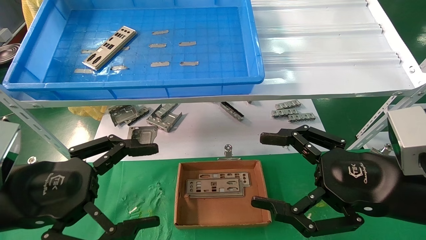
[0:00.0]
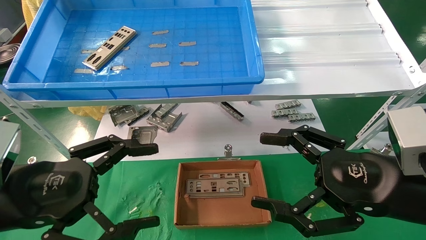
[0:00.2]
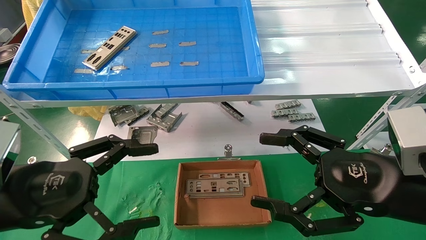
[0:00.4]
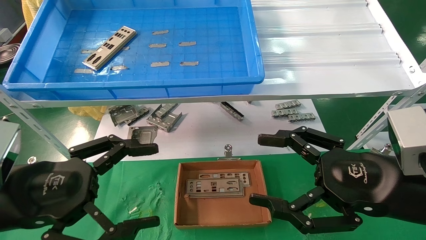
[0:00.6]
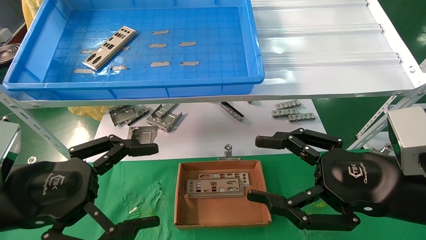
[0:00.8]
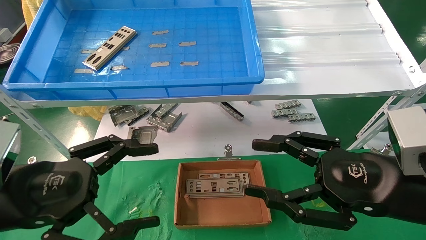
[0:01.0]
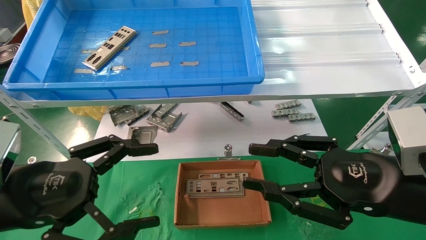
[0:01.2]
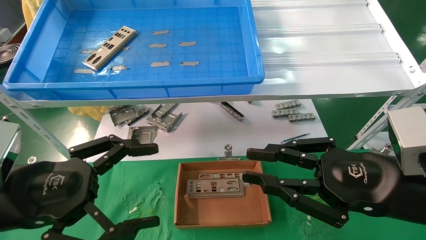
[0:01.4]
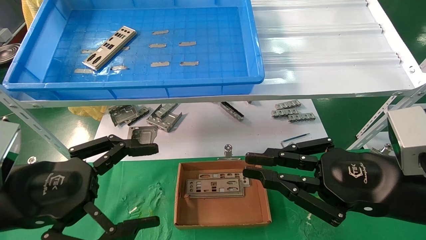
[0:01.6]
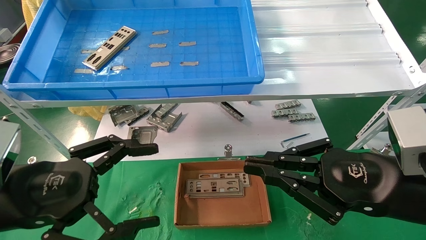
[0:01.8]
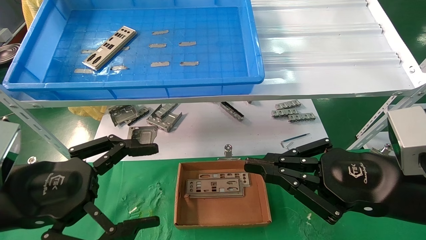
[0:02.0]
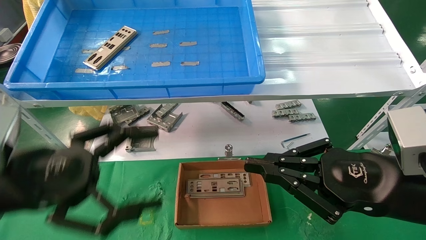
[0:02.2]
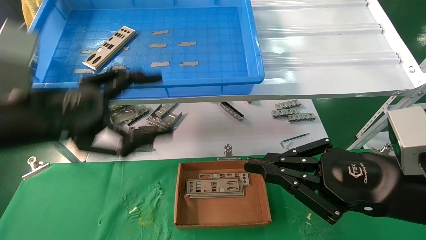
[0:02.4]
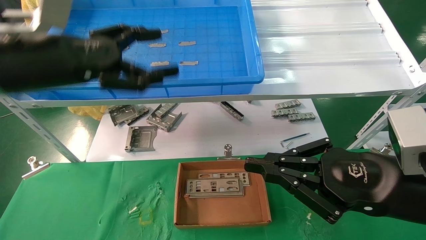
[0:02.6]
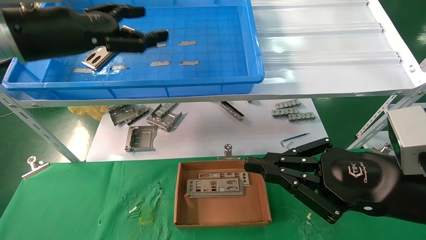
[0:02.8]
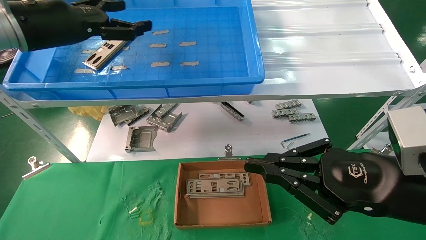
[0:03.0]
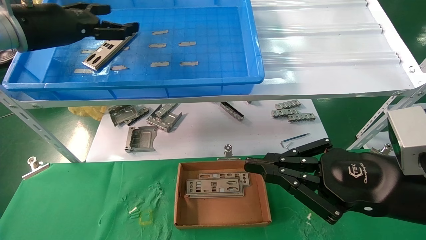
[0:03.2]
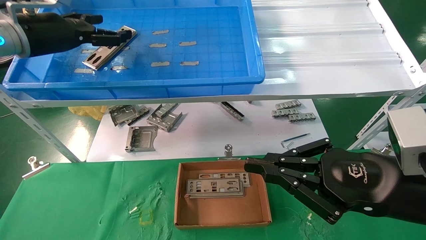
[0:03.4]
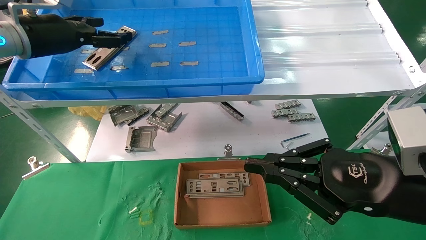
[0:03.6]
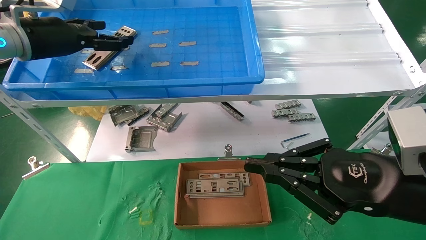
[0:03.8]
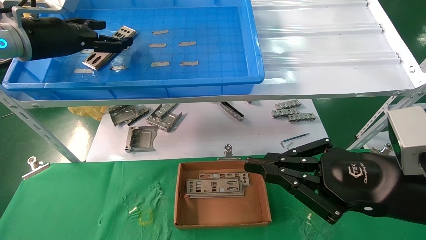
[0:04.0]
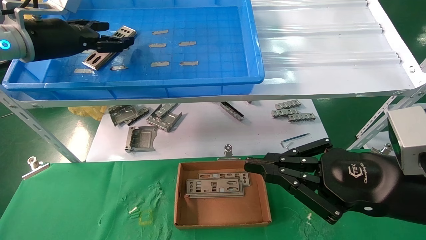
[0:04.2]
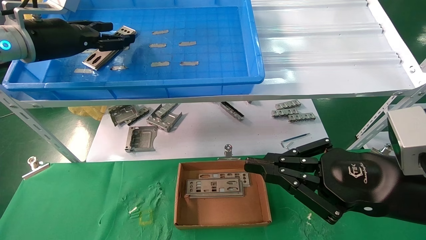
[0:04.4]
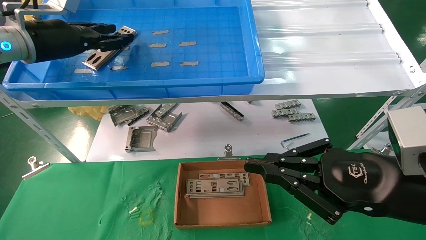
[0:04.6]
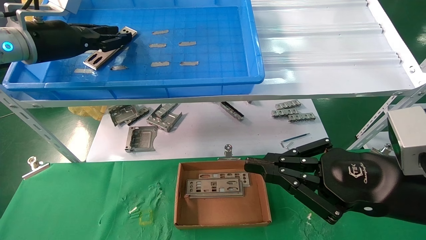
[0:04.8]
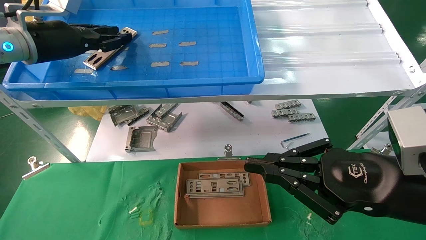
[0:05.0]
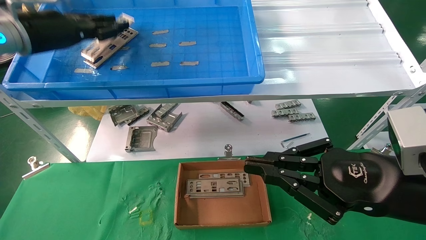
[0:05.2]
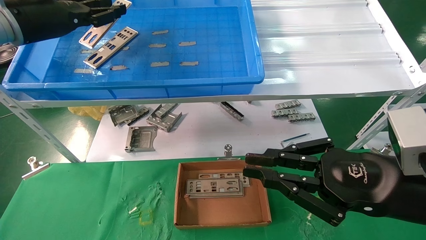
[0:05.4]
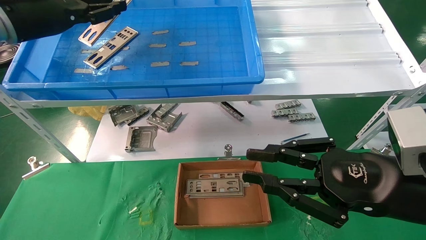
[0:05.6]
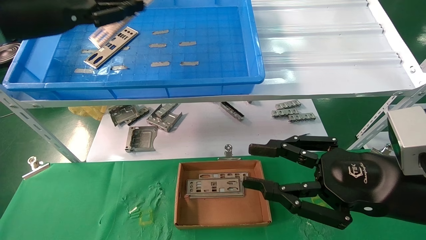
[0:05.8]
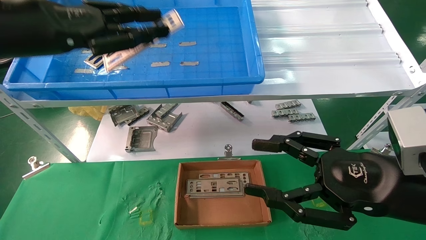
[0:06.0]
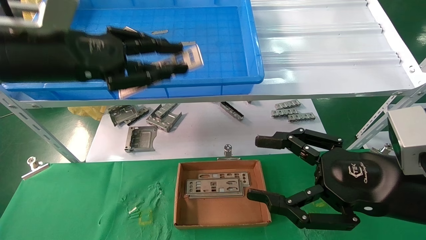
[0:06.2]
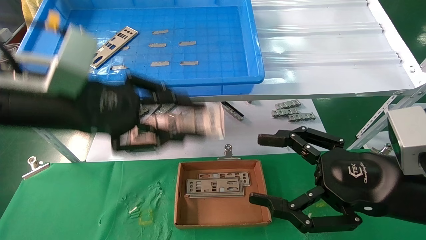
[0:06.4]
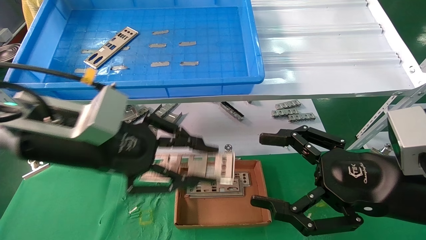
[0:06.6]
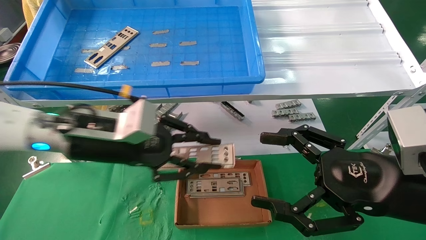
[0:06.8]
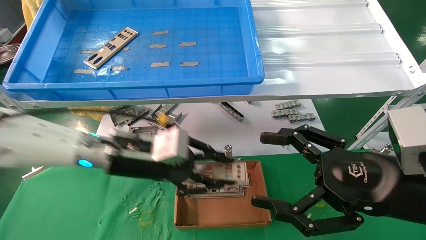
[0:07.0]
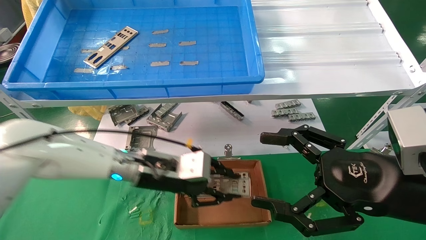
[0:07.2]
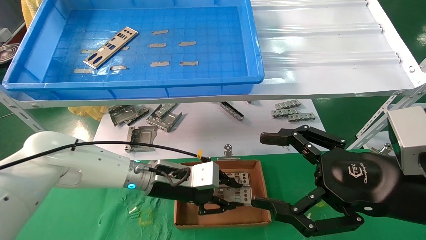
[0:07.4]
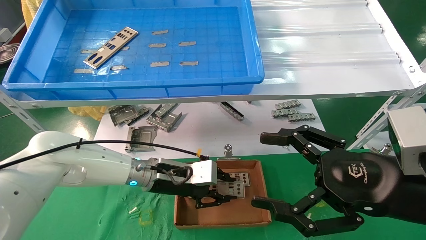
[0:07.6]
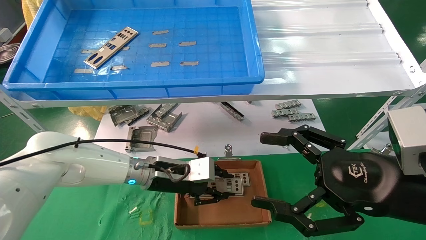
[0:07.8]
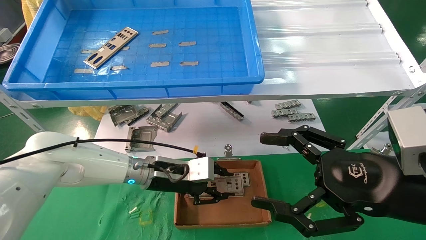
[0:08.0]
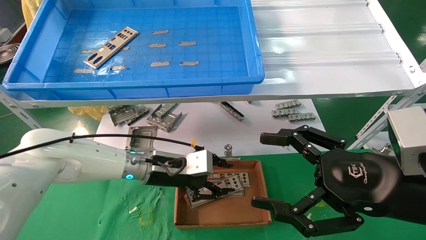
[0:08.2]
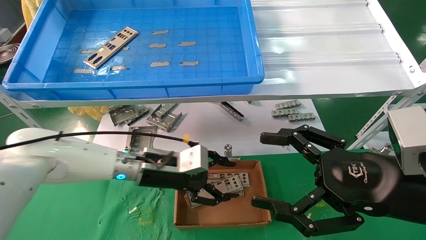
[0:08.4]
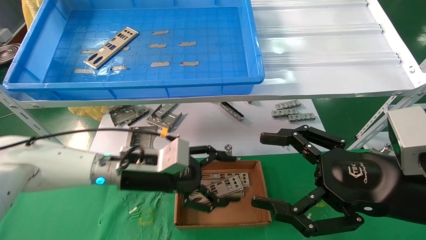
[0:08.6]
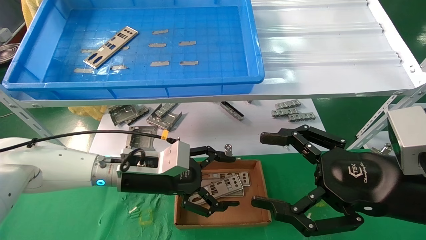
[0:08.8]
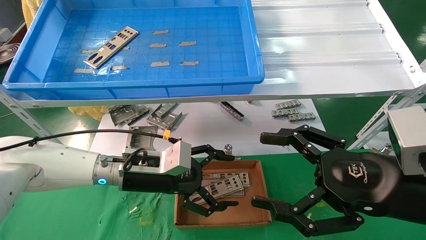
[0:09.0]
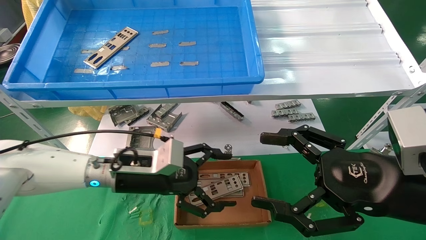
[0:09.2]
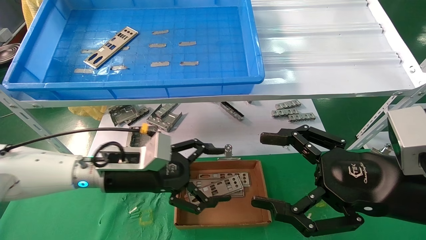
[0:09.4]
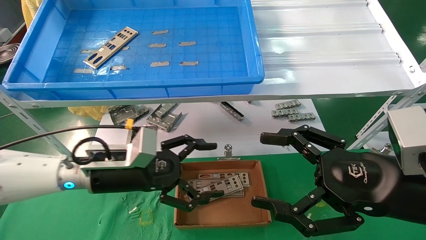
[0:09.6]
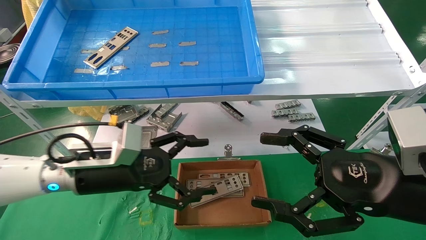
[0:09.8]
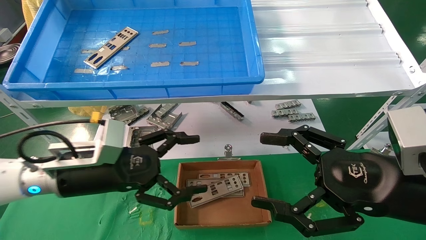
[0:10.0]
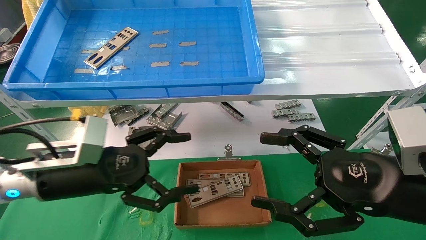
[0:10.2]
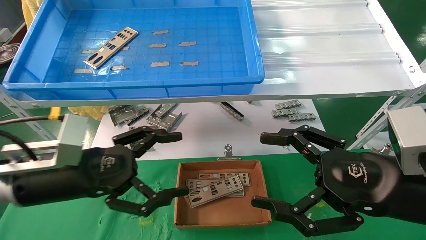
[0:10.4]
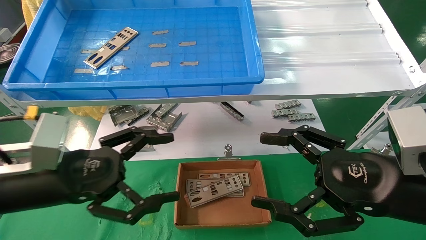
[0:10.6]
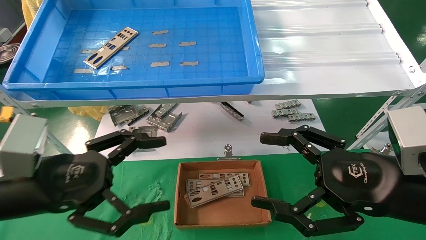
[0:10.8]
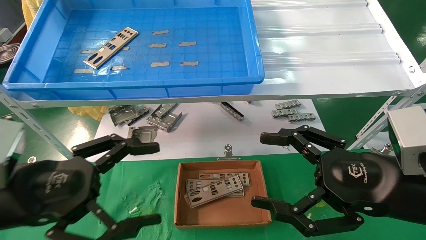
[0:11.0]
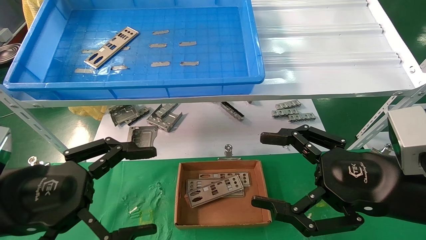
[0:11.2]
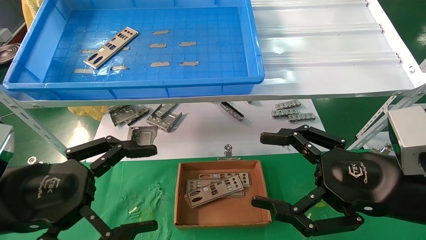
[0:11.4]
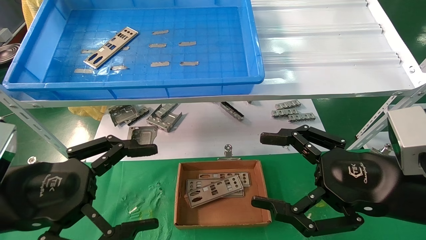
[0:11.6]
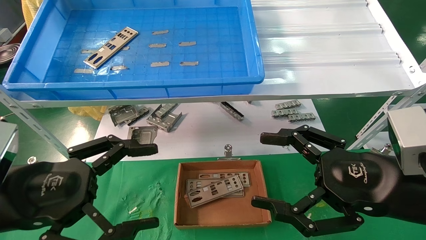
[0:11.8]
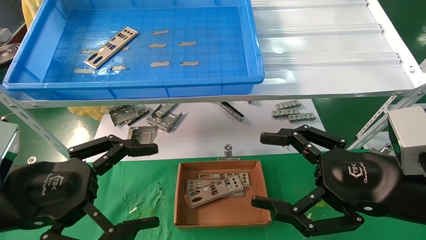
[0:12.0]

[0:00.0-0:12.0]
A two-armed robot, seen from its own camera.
Task of the whole recording: pick up the parts on the tray and put them in the cardboard box.
Step, 0:02.4 to 0:05.0: Pick up the IO bracket from the container box.
Step, 0:05.2 to 0:08.2: Place the IO bracket into the ingredient slot.
0:00.0 to 0:01.6: The right gripper closes.
0:01.6 to 0:03.0: The left gripper is displaced forward and upward by approximately 25 cm.
0:03.0 to 0:04.4: The grippers make only small movements.
0:04.4 to 0:06.0: The left gripper shifts approximately 10 cm backward, and closes its fingers; the right gripper opens its fingers.
0:06.0 to 0:07.6: The right gripper opens up. Meanwhile the left gripper goes some 30 cm downward and to the right.
0:07.6 to 0:09.0: The left gripper shifts by about 5 cm, and opens its fingers.
0:09.0 to 0:10.4: The left gripper goes about 15 cm to the left and backward.
0:10.4 to 0:12.0: The left gripper heads backward, covering about 5 cm.

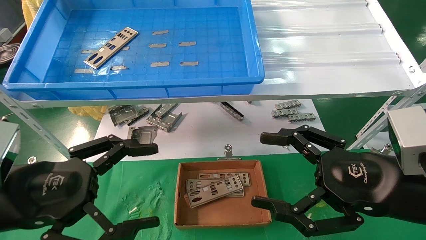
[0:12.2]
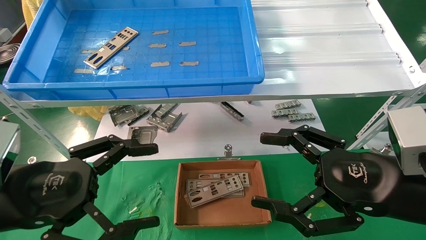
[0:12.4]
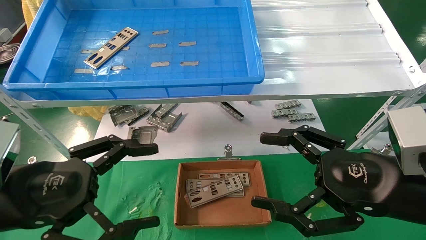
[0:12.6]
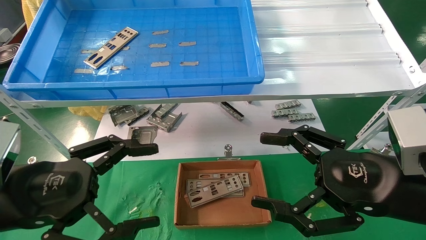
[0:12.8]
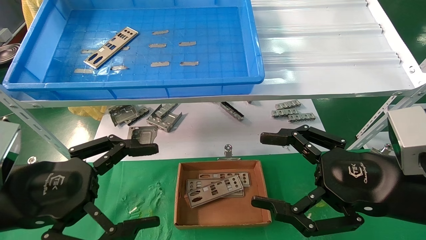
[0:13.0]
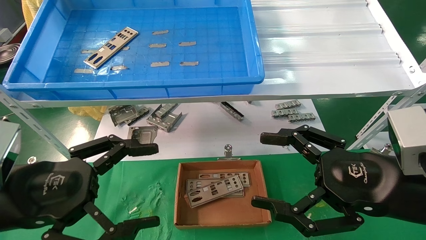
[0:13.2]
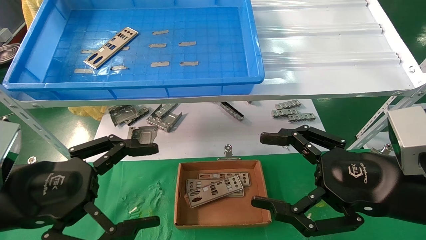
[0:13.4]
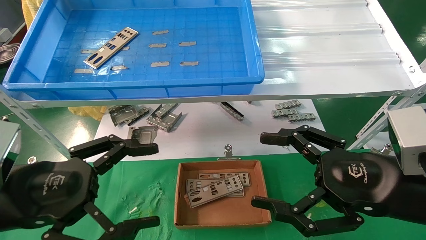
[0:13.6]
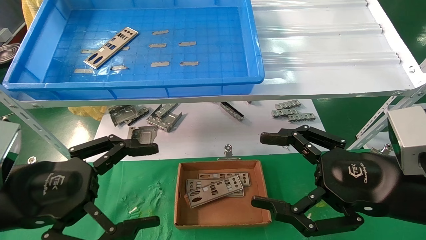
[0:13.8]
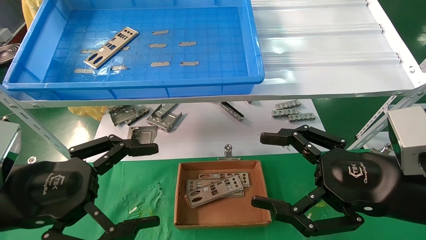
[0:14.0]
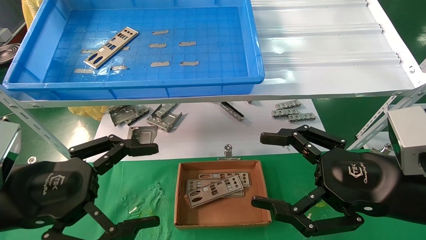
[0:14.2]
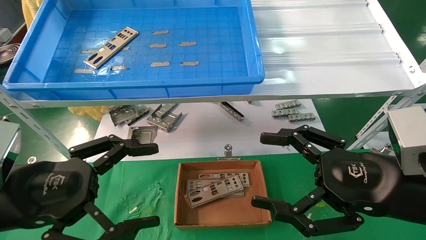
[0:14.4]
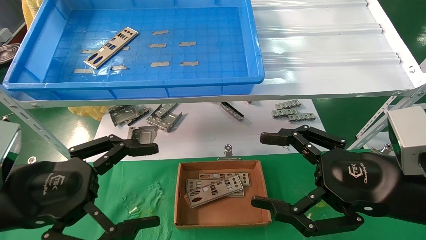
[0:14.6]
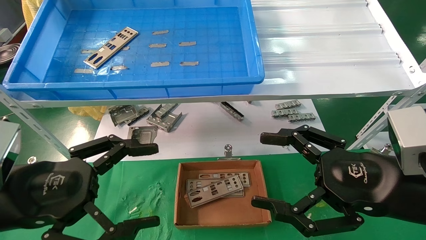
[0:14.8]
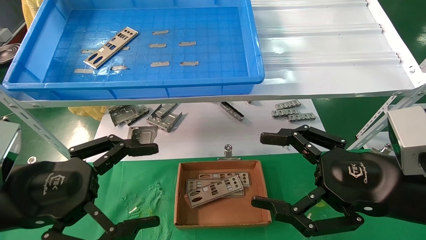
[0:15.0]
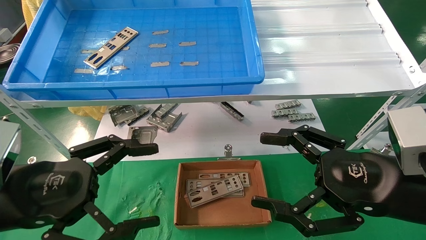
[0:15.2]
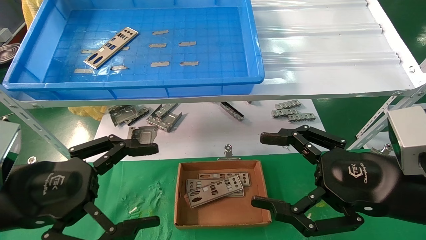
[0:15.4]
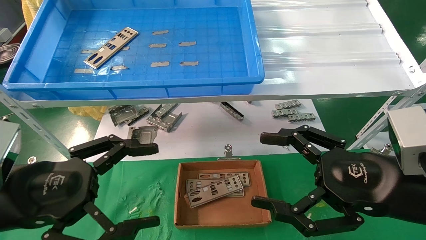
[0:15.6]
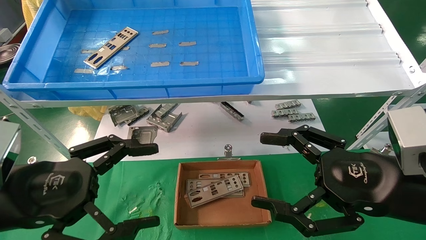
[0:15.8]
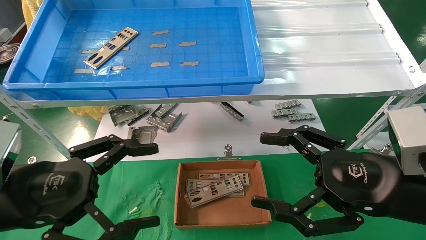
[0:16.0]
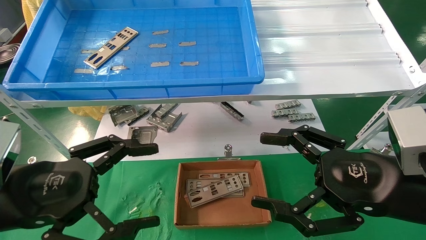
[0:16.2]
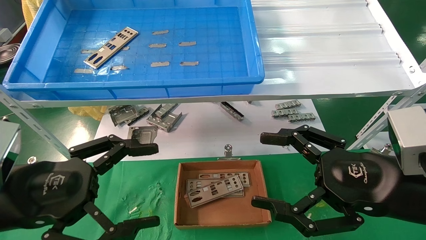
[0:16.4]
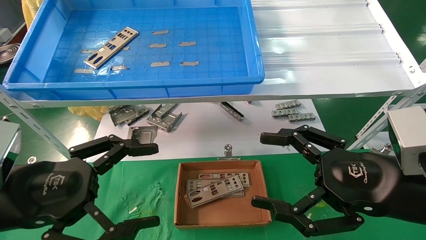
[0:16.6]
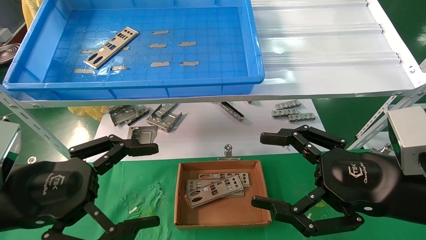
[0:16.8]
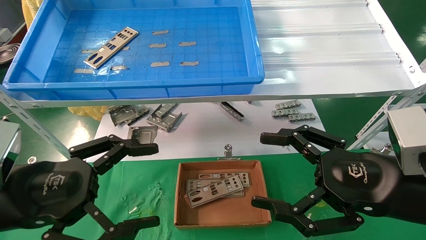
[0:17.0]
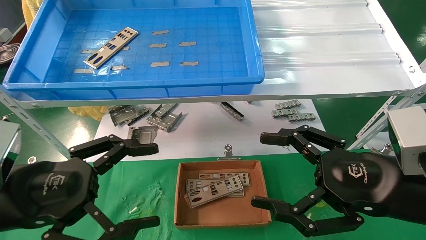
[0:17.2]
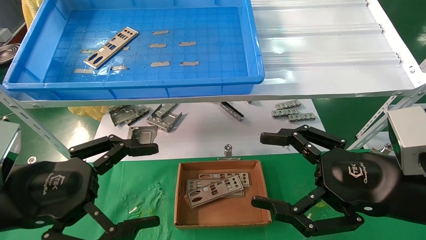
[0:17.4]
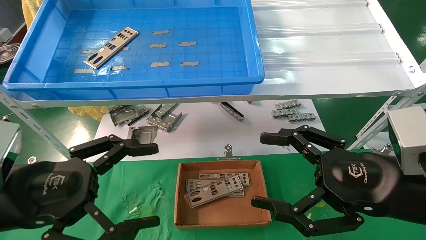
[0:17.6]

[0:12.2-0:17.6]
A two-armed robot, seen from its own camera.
Task of the whole recording: pick up the parts on the tray and put them in the cardboard box.
0:12.2 to 0:17.6: Both grippers stay put.
